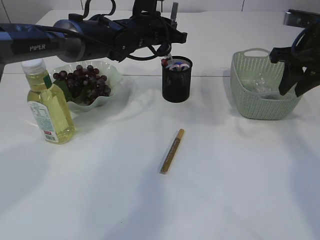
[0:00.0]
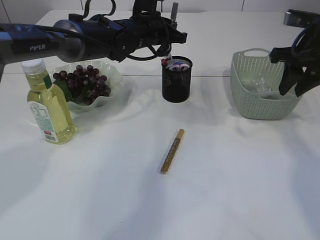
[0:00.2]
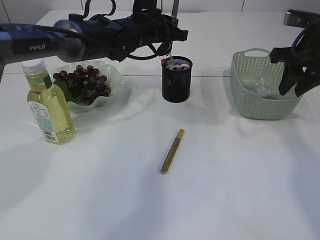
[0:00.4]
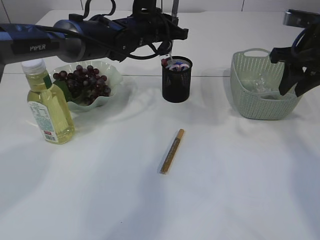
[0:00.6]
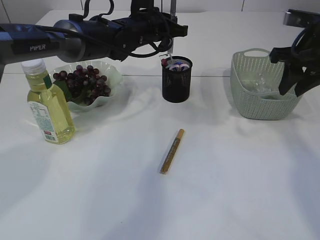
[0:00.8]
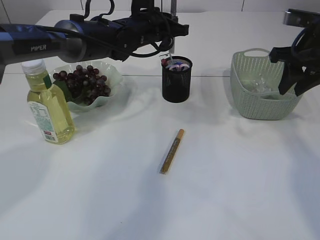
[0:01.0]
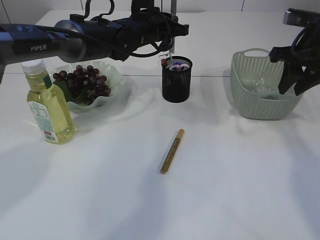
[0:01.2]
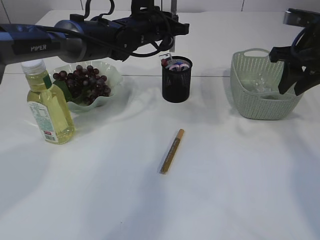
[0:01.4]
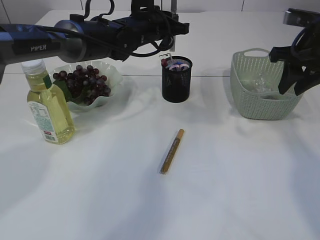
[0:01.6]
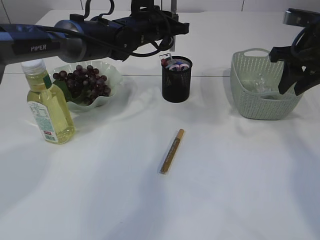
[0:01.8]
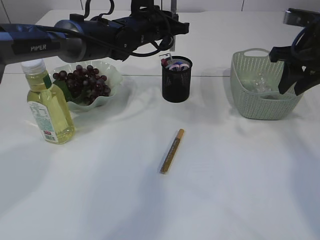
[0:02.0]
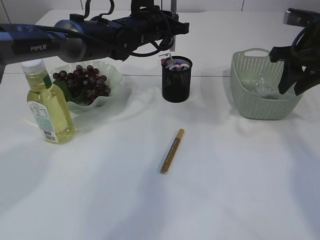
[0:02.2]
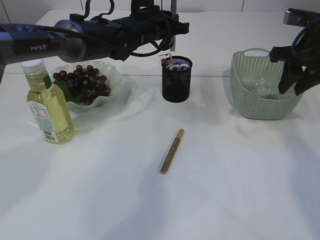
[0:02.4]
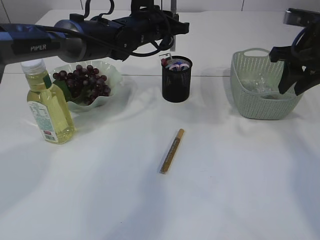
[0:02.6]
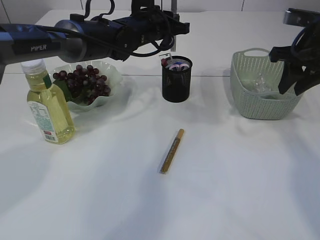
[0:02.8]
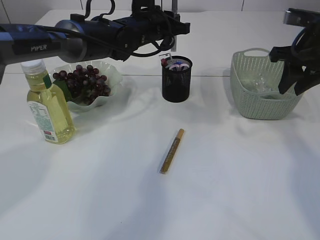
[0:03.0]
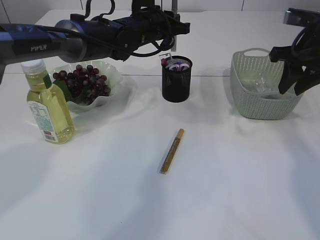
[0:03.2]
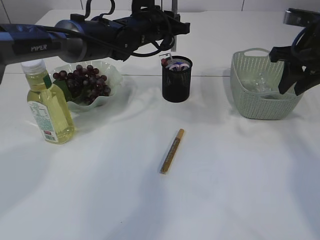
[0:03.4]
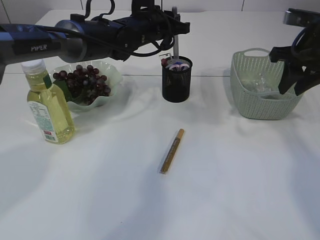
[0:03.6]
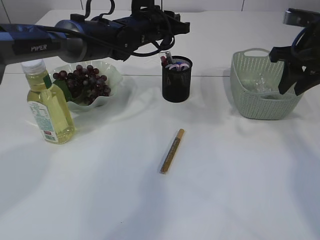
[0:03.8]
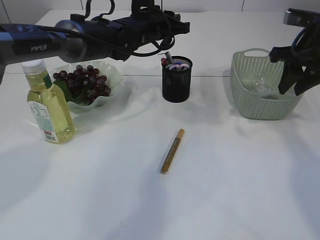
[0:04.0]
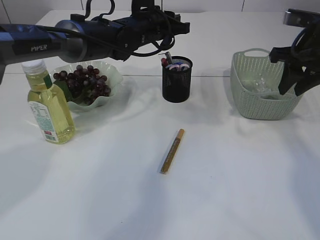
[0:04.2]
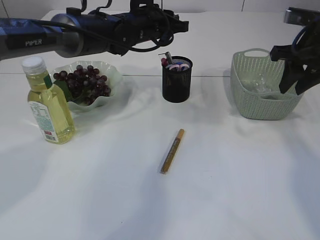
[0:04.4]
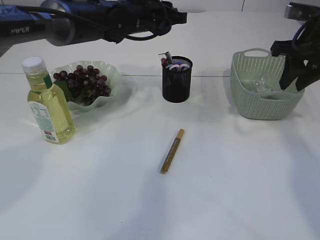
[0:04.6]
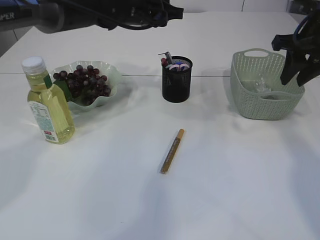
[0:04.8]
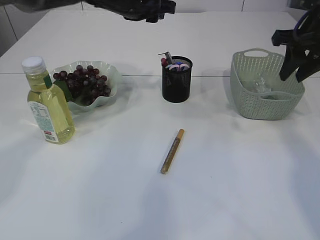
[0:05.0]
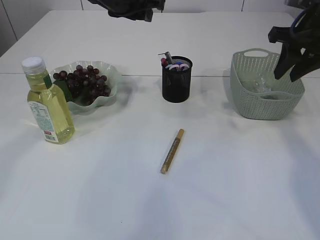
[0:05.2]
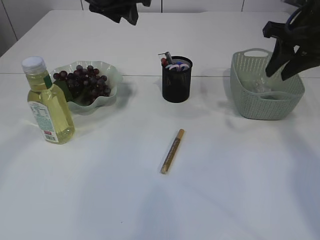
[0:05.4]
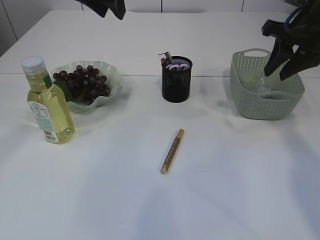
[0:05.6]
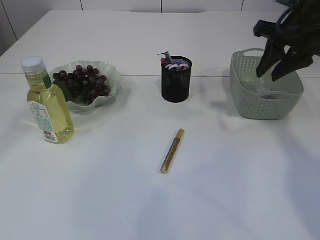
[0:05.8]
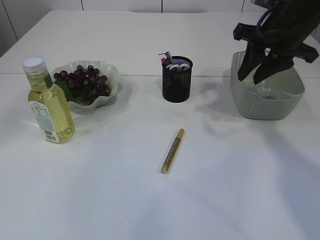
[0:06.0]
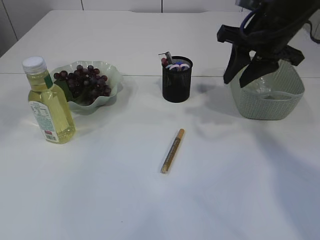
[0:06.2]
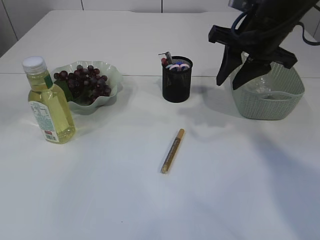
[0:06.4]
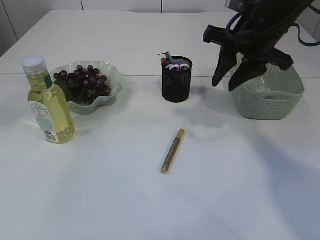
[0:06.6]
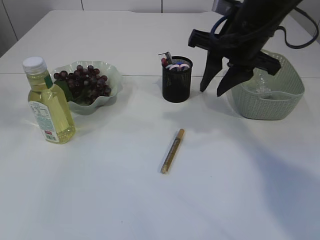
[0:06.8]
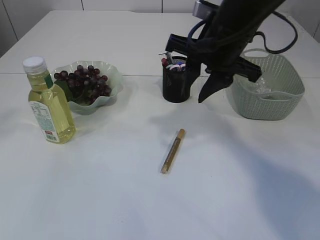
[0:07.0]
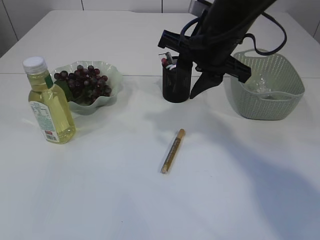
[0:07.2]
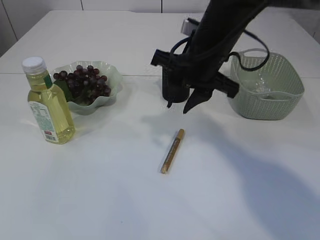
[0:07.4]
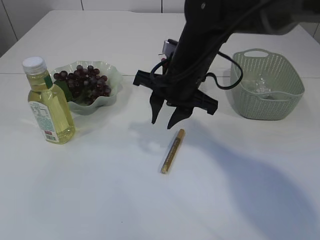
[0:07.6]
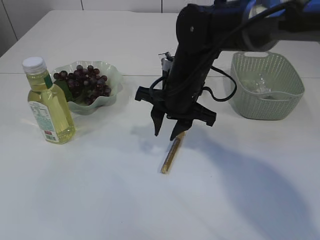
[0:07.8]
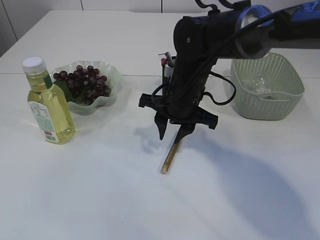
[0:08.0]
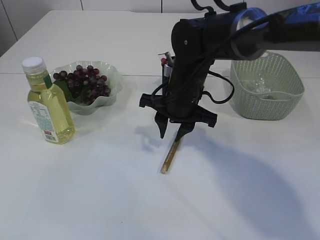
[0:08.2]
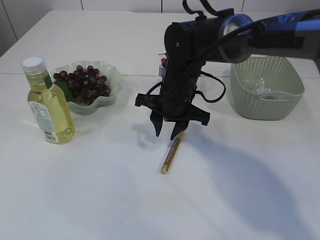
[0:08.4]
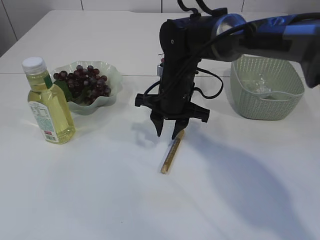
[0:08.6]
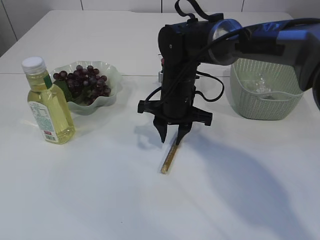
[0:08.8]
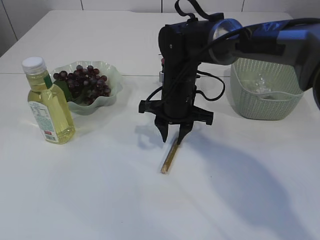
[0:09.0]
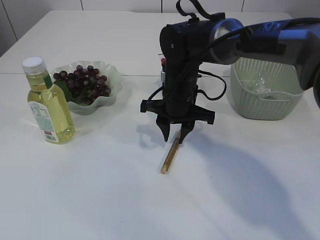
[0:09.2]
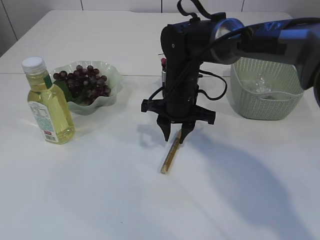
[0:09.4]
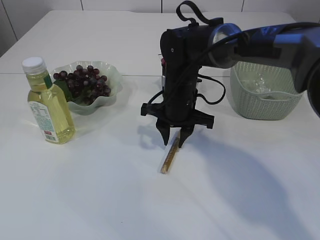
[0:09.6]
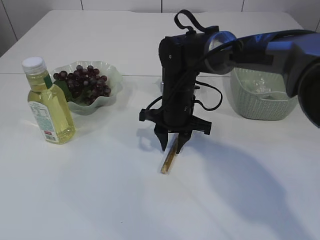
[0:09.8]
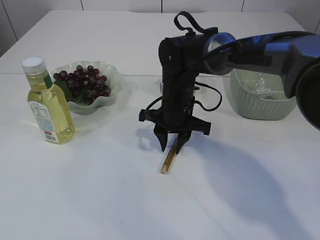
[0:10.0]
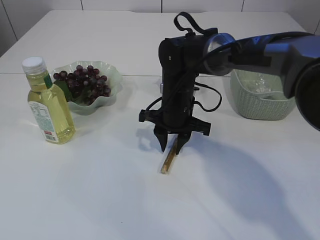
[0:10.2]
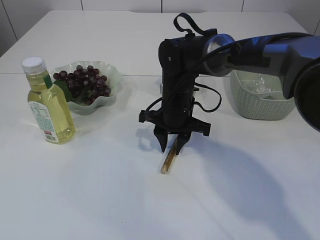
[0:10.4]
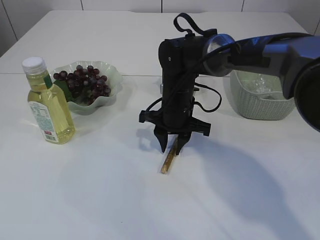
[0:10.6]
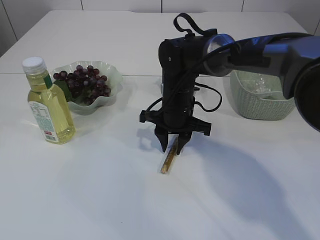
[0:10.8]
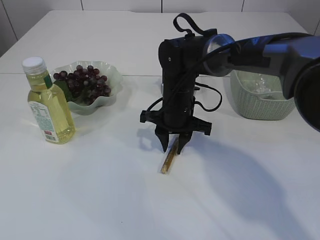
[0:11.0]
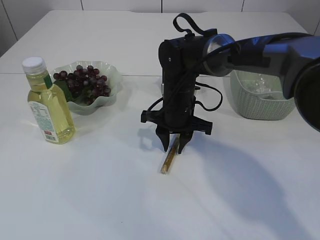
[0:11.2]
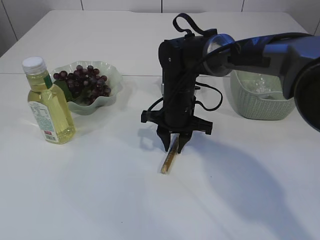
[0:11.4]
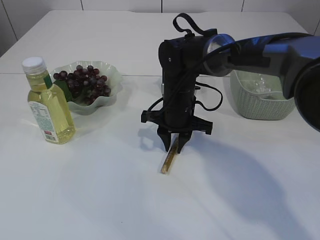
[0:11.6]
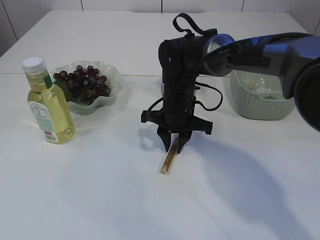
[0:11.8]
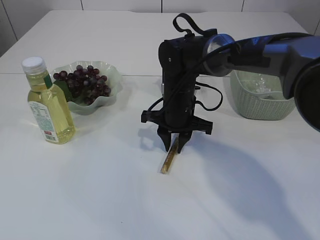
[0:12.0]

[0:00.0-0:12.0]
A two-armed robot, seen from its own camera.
Step, 0:00.0 to 0:04.2: place the silver glue into the pen holder.
0:00.0 to 0:01.6: The grippers stay close to where they were, moving slightly.
0:01.6 to 0:04.4: The two grippers keep their place.
0:04.4 to 0:06.0: The right gripper goes roughly 5 cm to the left. The left gripper travels upward and backward by some 25 cm, and opens its fingers.
0:06.0 to 0:07.6: The left gripper heads backward and to the left, covering about 25 cm. The right gripper heads to the left and downward, covering approximately 15 cm.
0:07.6 to 0:09.0: The right gripper goes about 5 cm downward.
0:09.0 to 0:10.4: The grippers move only a little.
0:10.4 to 0:12.0: The two grippers keep their place.

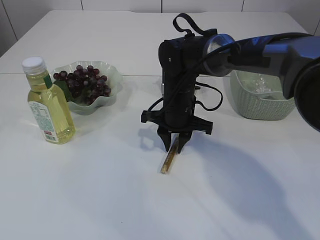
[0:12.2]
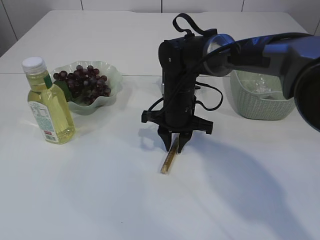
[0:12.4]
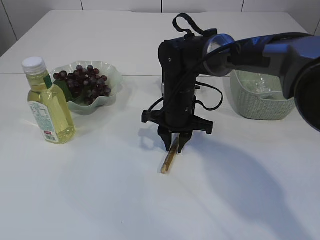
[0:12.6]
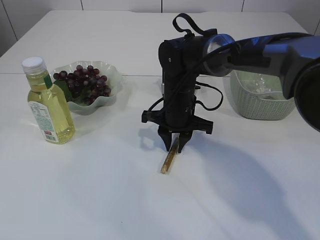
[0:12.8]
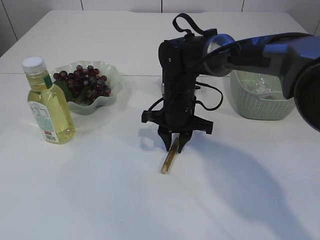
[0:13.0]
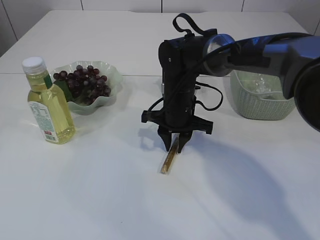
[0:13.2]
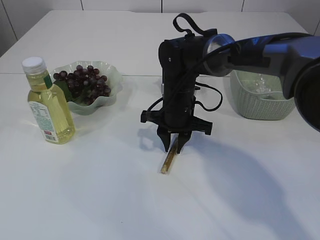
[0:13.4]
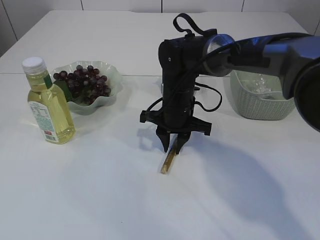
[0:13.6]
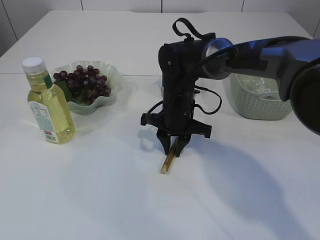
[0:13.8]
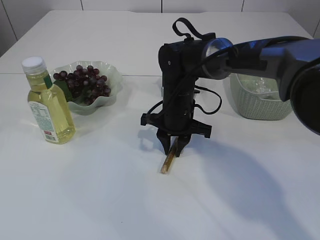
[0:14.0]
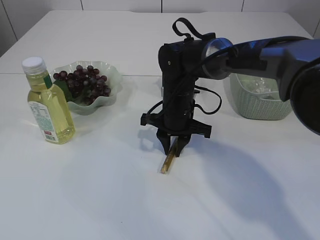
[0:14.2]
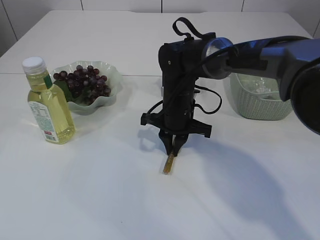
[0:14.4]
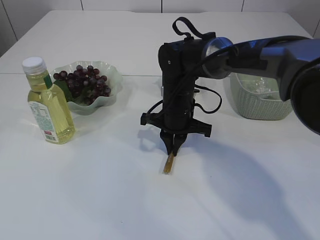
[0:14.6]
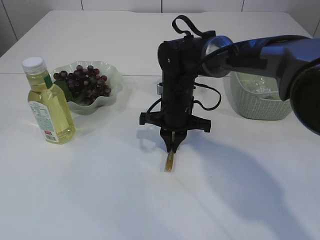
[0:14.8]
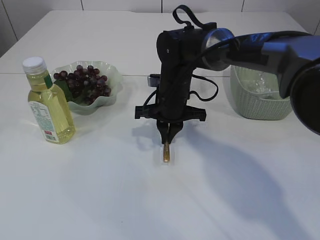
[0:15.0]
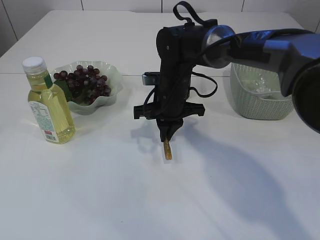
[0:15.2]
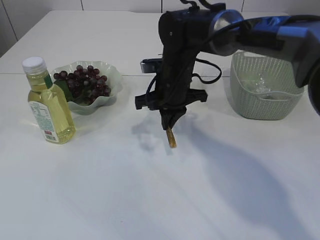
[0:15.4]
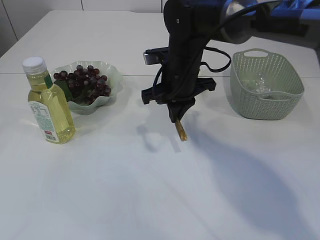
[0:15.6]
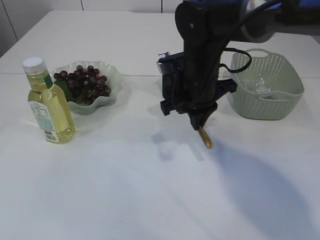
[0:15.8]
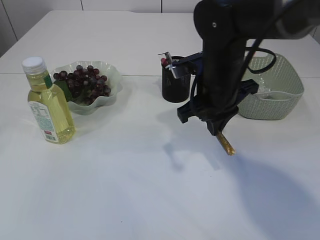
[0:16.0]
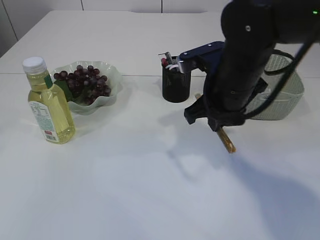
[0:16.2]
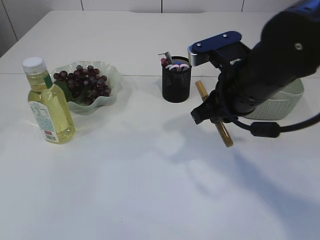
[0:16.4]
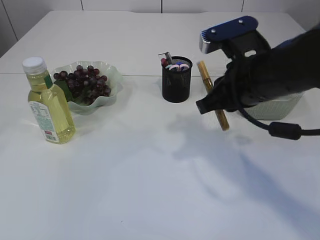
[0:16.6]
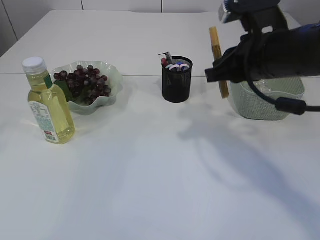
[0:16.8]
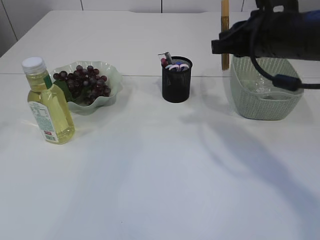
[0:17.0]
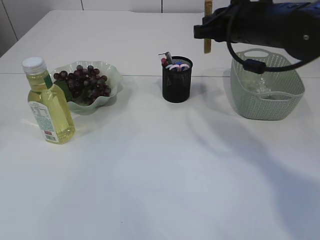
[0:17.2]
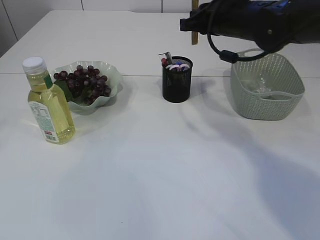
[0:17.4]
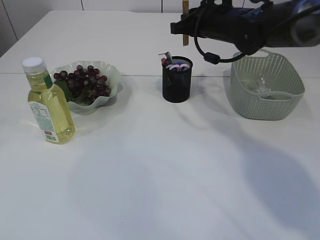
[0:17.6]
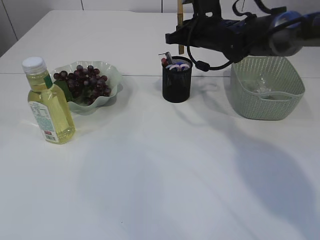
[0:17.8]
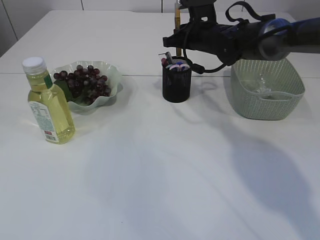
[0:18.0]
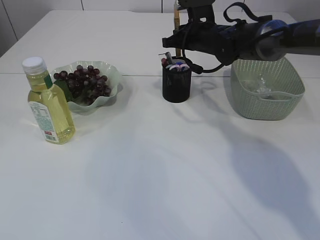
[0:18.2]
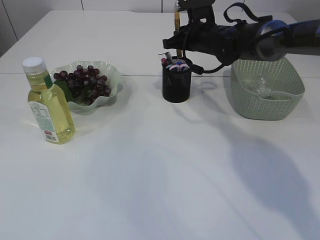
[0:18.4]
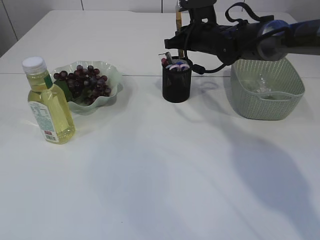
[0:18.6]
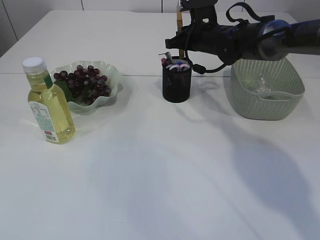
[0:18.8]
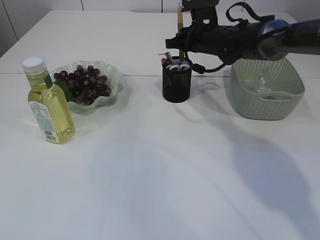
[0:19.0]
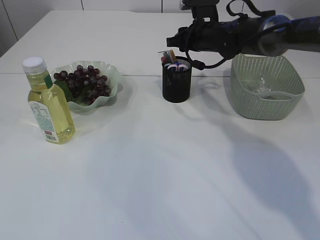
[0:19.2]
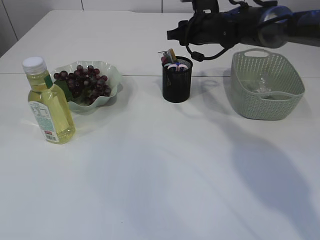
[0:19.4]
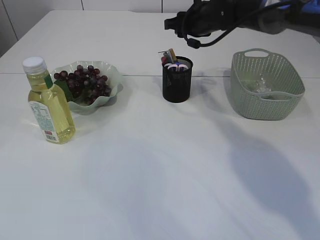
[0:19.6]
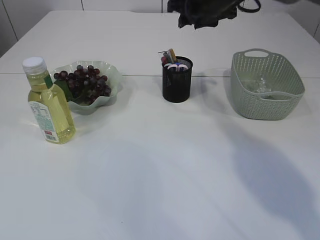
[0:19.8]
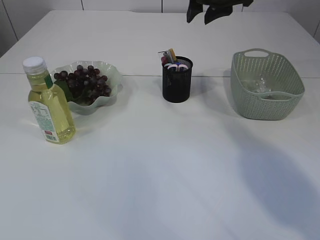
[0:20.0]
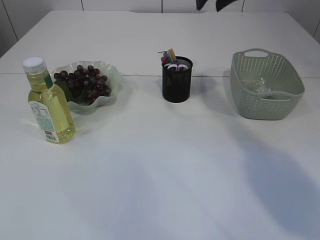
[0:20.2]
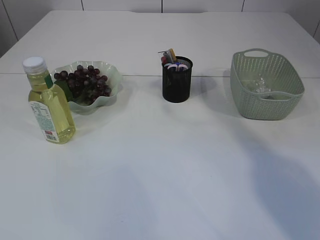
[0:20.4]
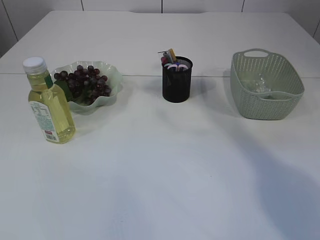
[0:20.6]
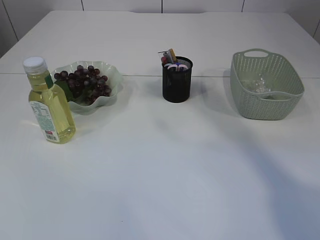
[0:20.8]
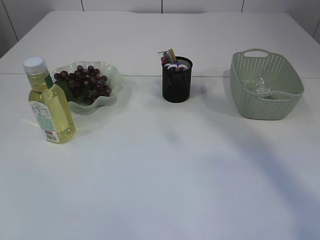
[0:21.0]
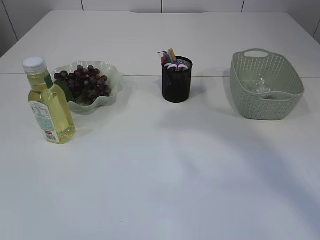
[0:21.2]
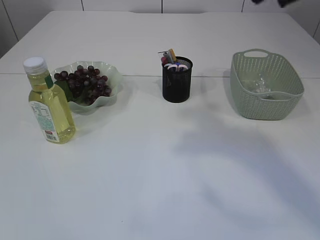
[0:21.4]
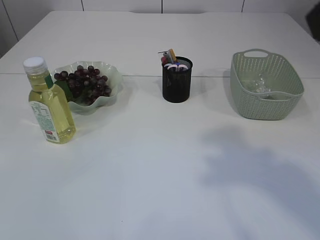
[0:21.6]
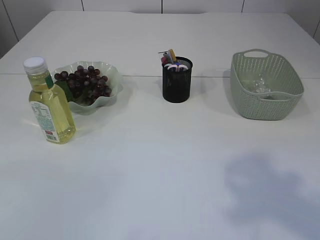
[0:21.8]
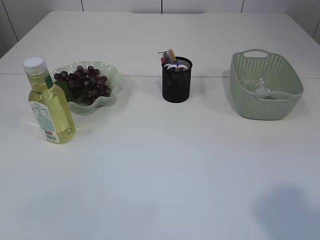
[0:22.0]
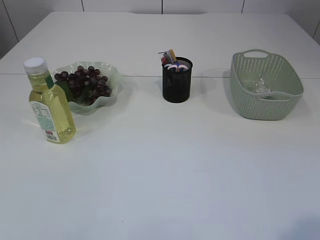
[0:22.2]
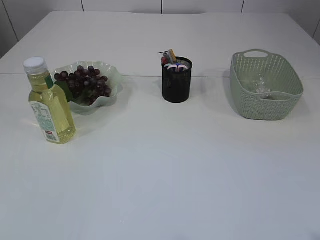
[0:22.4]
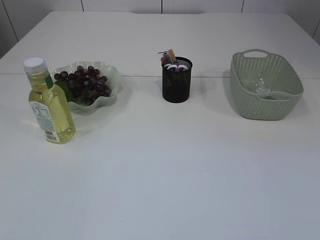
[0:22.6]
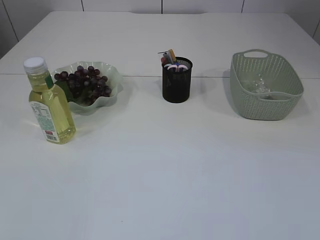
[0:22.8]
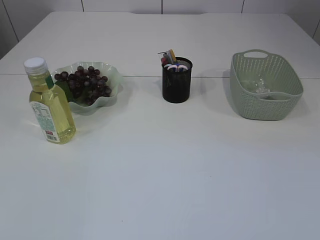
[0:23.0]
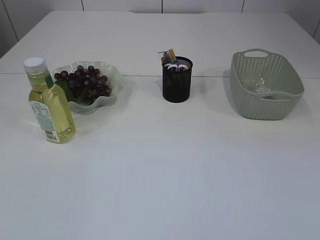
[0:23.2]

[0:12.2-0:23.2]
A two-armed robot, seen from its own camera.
Step, 0:12.2 to 0:15.8: pick up the yellow glue.
Step, 0:16.0 to 0:19.6: place the yellow glue into the pen holder.
0:12.2 to 0:13.8: Both grippers stay about where they are.
0:13.8 to 0:15.4: The right gripper goes roughly 5 cm upward.
0:15.4 to 0:17.0: The right gripper moves to the right, upward and backward, approximately 20 cm.
0:17.0 to 0:18.4: The right gripper heads forward and downward, covering roughly 20 cm.
0:18.4 to 0:20.0: The right gripper heads upward and backward, covering about 15 cm, and opens up.
0:20.0 to 0:21.6: The right gripper is displaced backward by roughly 30 cm. The left gripper shifts some 20 cm backward and downward.
